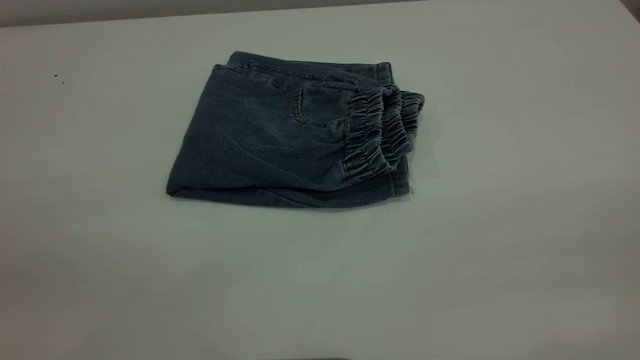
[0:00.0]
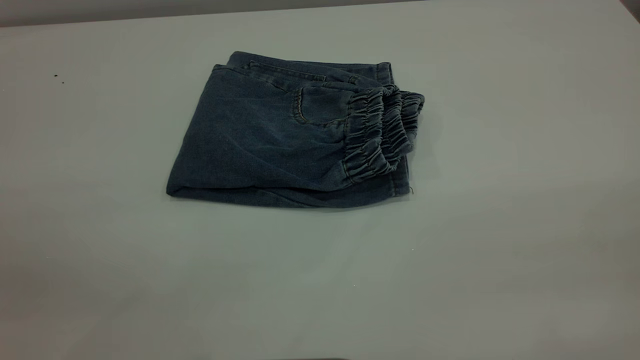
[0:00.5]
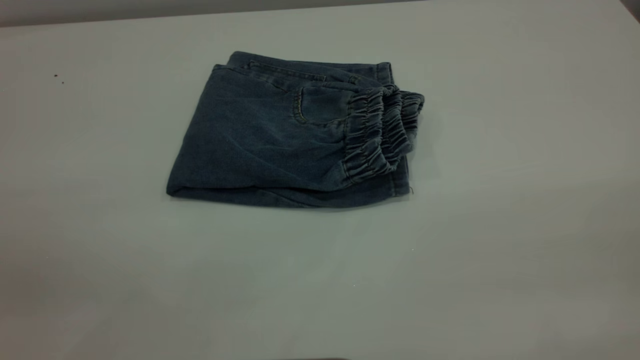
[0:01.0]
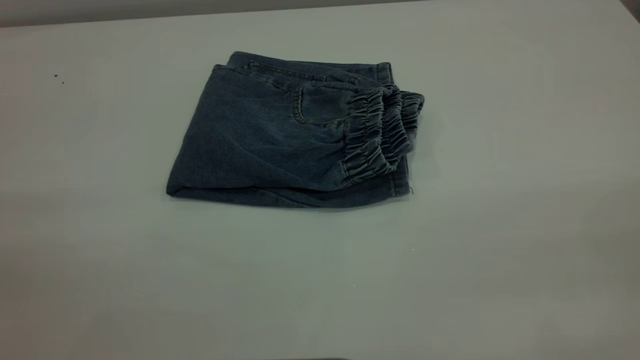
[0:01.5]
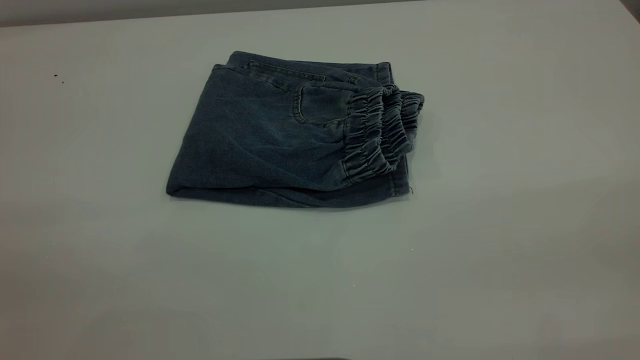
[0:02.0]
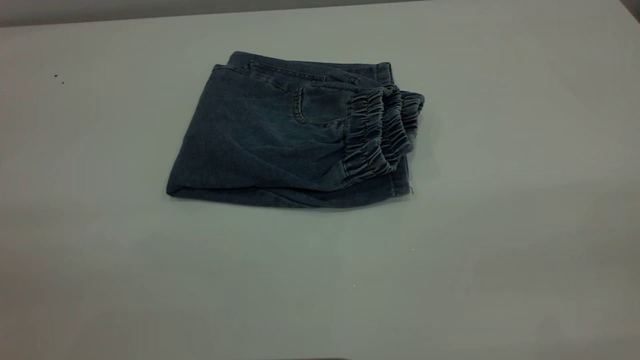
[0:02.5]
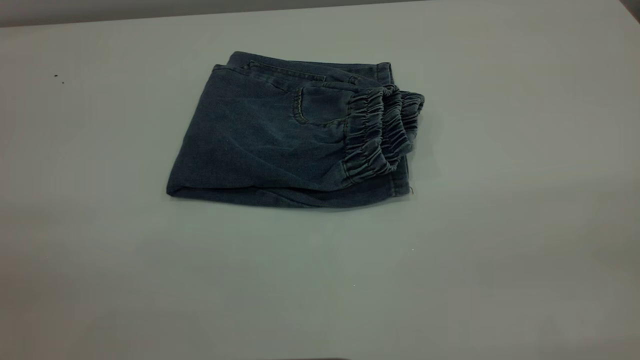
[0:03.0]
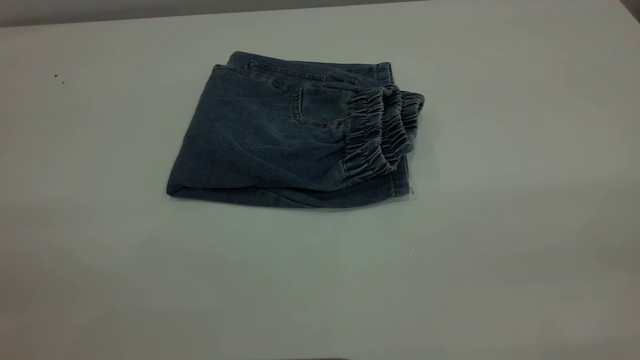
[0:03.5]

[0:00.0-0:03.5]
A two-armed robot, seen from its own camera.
0:02.0 to 0:03.5: Both grippers stay put.
